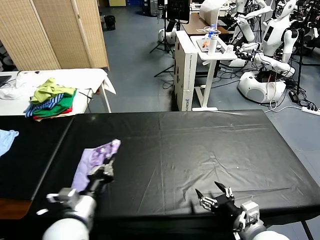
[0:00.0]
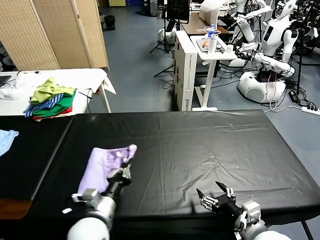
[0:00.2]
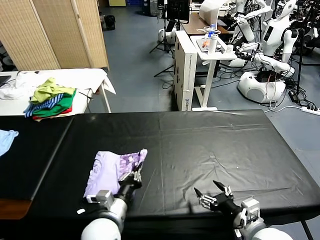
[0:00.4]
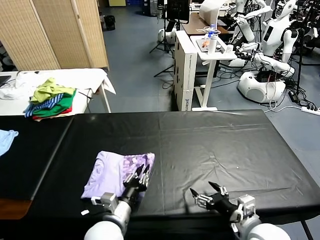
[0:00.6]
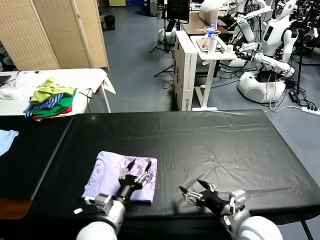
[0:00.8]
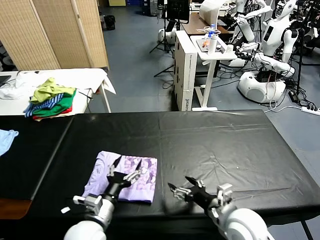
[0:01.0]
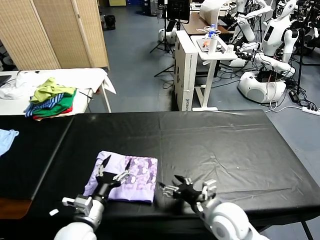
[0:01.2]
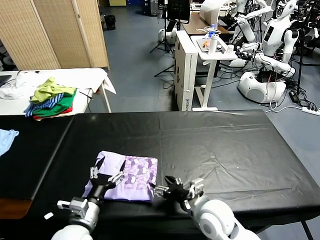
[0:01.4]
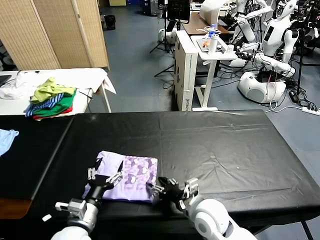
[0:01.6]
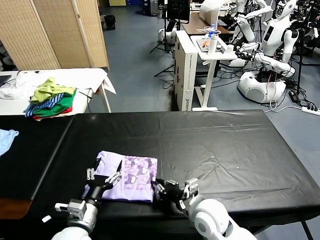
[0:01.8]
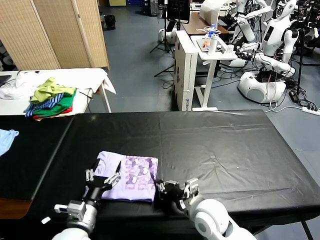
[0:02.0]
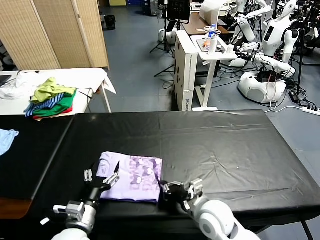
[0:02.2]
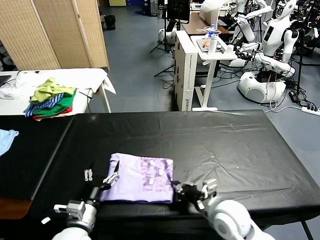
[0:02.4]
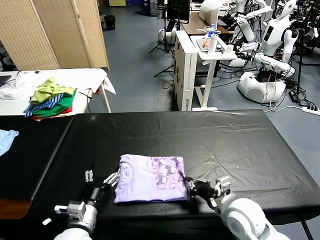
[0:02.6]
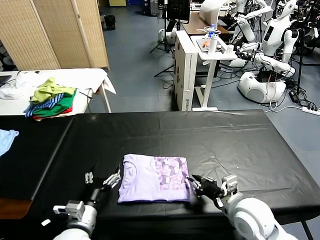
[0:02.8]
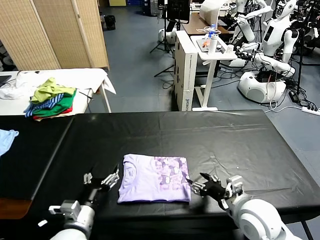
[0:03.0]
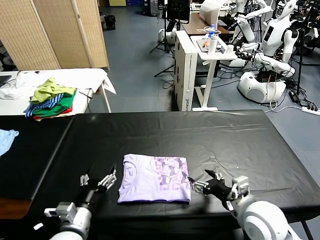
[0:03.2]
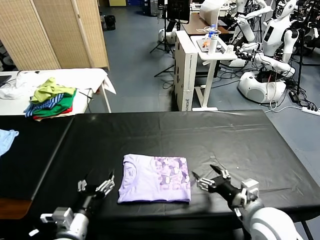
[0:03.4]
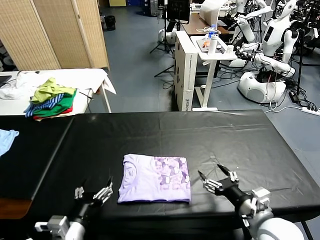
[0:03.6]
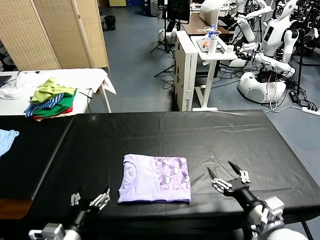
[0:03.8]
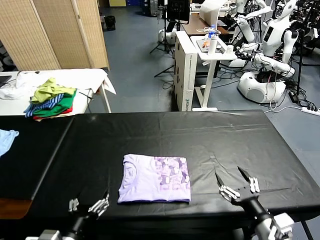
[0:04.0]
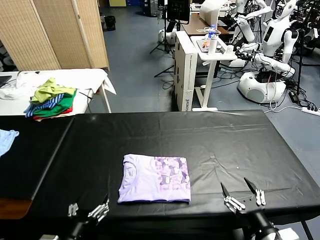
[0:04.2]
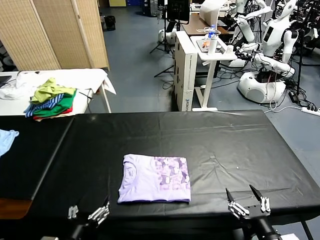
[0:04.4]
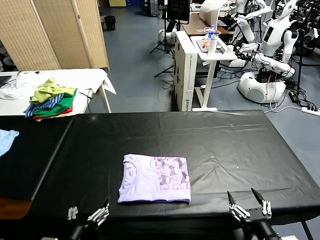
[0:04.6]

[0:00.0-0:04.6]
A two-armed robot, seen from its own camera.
Task of the whole recording: fold and organize the clothes.
Step, 0:01.0 to 0:03.2: Drag the clothes to the center of the table.
0:00.0 to 0:01.6: The left gripper goes some 5 cm downward, reaches about 10 cm to the right, then returns, and opens, while the right gripper shifts approximately 15 cm to the left and forward.
0:01.6 to 0:03.0: The right gripper heads to the right and upward, covering approximately 10 cm, and closes and opens again.
0:03.0 to 0:04.6: The left gripper travels backward by some 10 cm, while the right gripper is displaced backward by approximately 15 cm, and opens up.

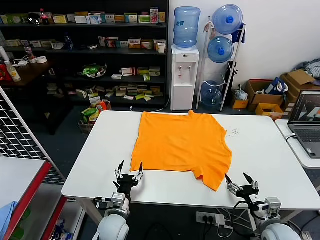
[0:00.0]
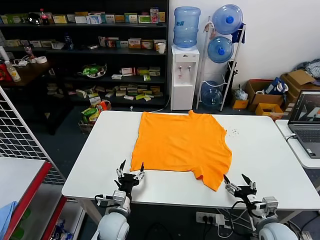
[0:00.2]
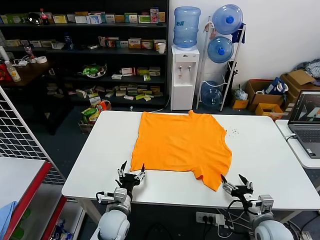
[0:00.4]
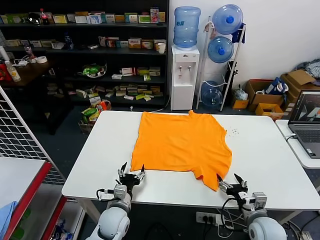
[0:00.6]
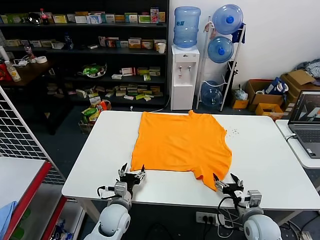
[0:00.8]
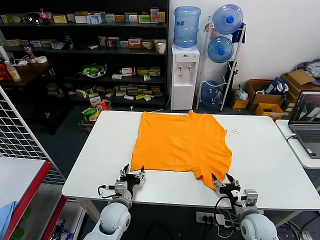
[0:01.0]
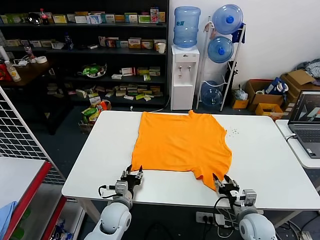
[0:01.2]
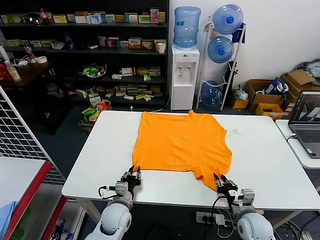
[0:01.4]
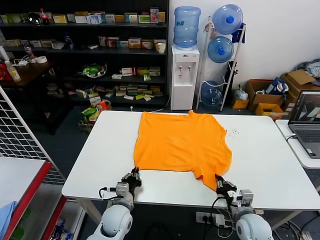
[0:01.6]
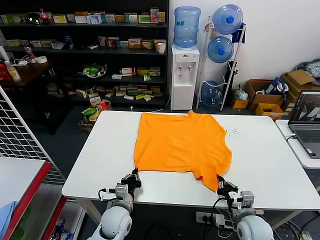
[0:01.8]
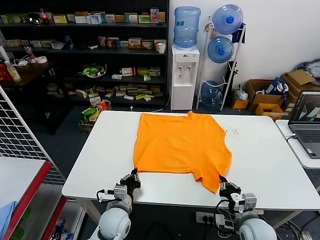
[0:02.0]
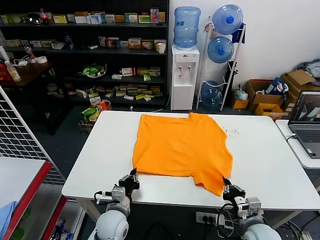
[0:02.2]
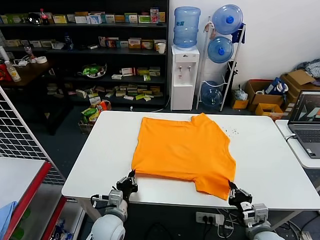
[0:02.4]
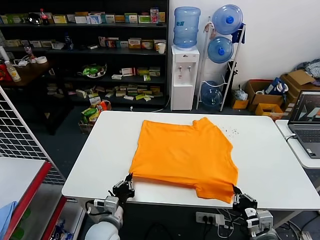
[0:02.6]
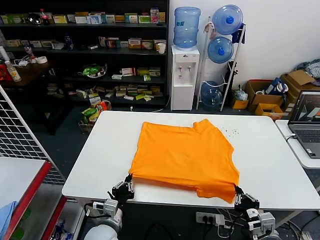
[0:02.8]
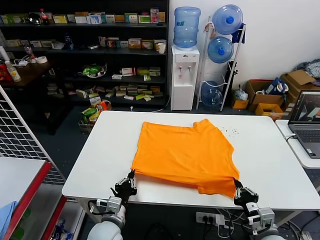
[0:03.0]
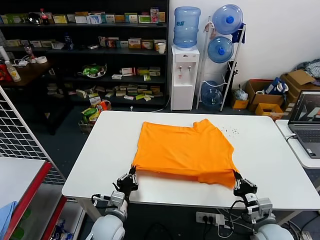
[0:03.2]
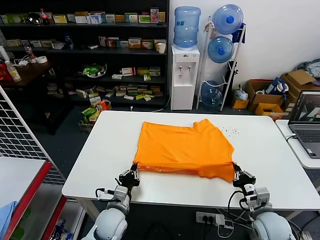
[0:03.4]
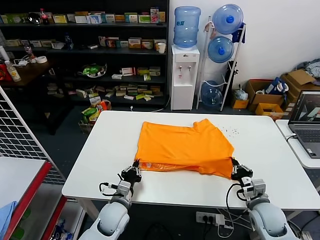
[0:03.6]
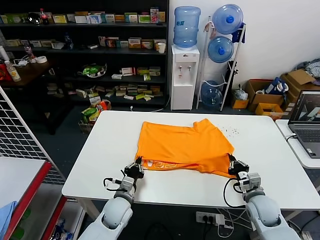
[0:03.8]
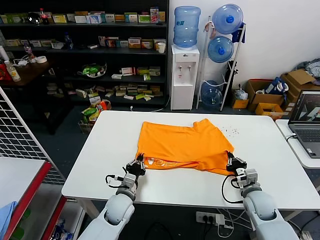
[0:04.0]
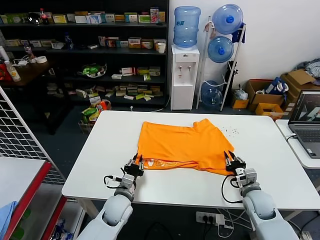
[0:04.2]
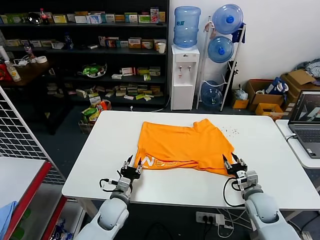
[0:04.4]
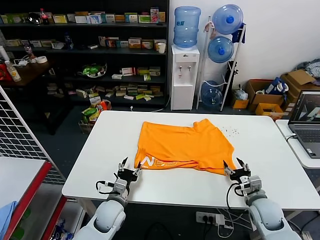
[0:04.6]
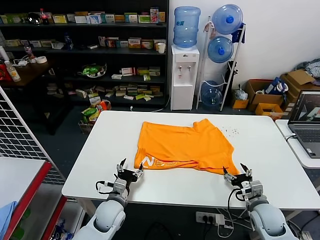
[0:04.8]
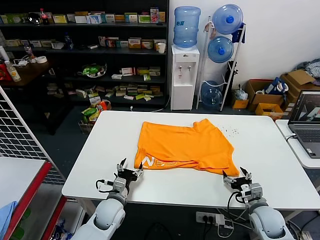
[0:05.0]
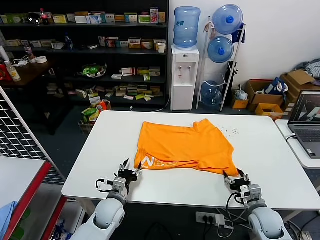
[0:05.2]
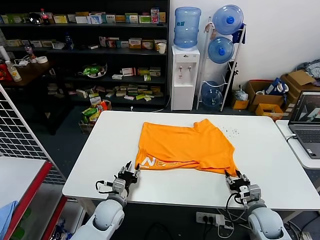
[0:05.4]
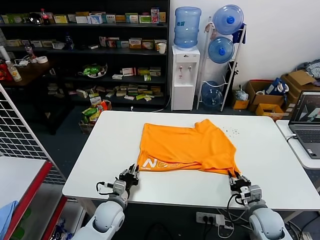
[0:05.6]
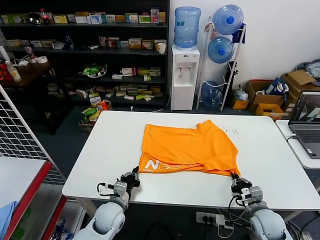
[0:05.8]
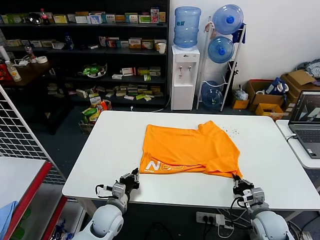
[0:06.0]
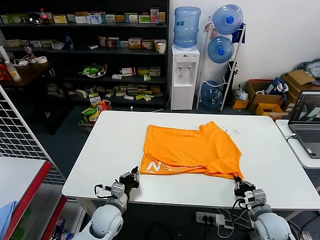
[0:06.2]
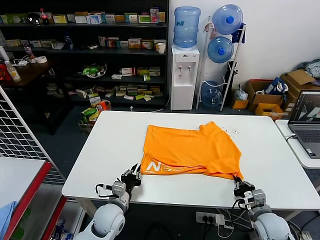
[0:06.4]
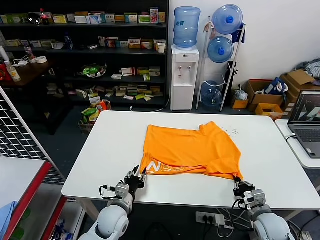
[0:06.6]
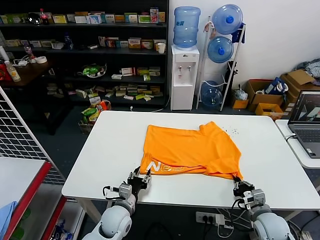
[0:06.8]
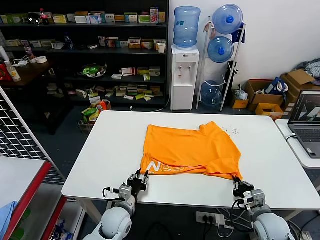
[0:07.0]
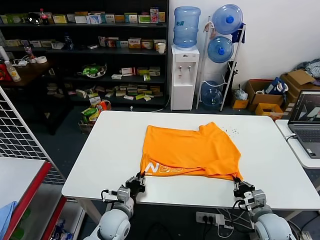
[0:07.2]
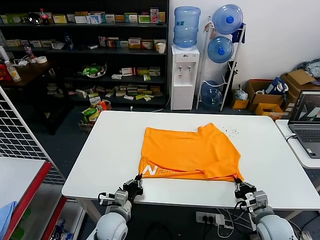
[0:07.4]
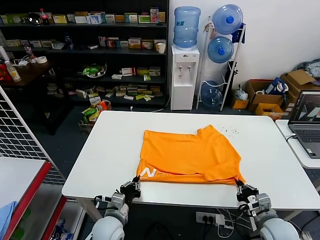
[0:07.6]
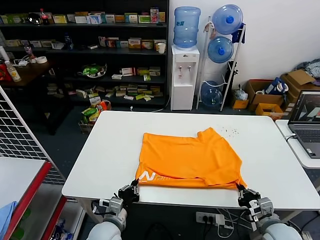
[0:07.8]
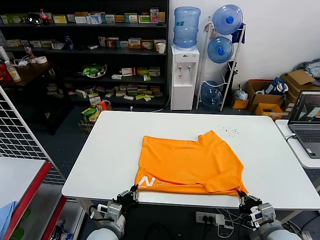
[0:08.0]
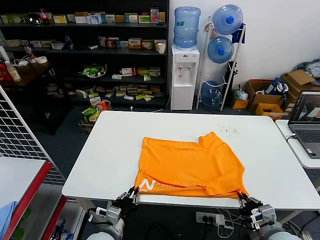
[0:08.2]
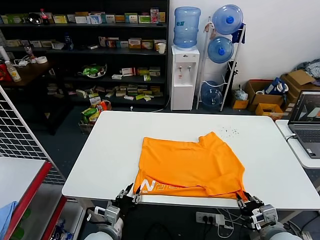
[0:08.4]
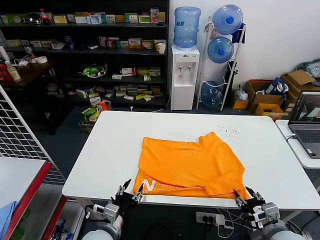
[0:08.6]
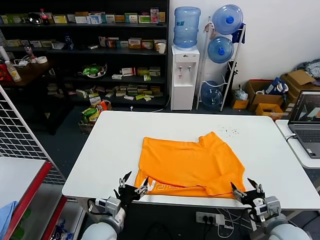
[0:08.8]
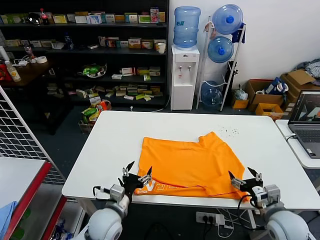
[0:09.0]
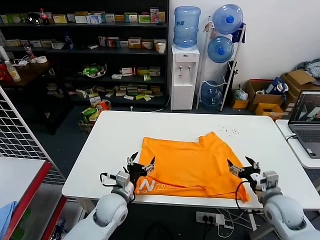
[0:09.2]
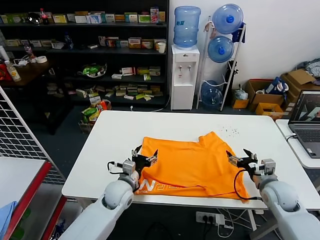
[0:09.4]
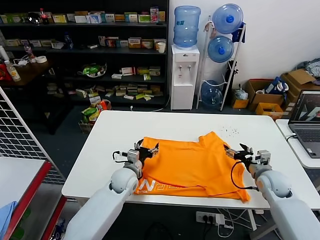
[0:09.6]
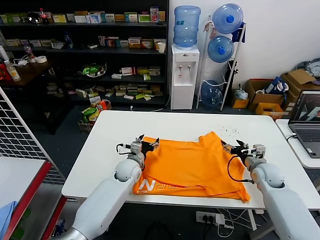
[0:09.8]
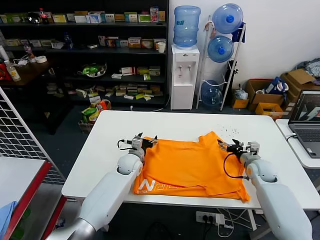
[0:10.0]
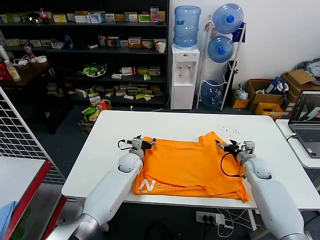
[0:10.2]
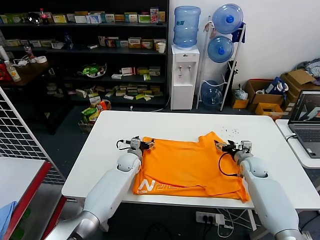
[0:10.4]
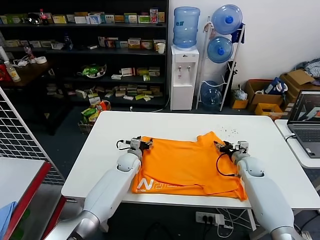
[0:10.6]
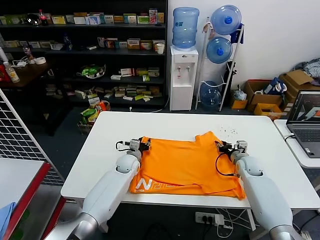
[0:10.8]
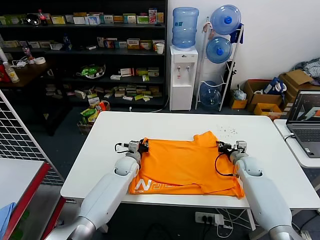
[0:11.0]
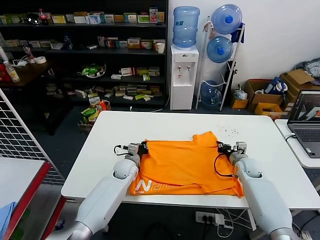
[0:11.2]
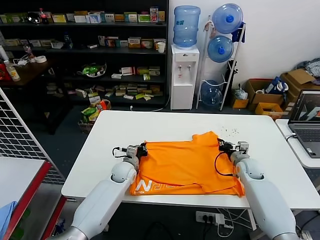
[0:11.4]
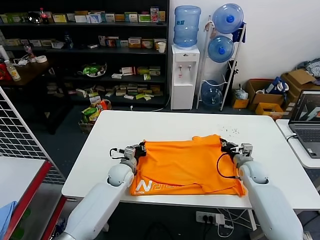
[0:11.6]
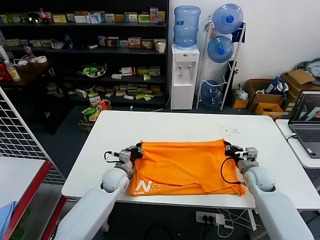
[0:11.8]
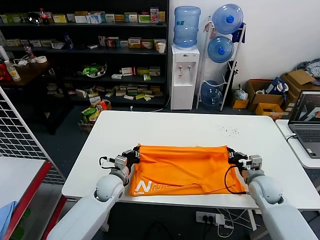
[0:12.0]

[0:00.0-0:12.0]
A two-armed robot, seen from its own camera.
Task of the whole recording: fold and organize the clothes.
Step, 0:00.0 to 0:01.8: use both grippers simultaneously to clamp the lower edge of the clothing fabric.
Step, 0:02.0 to 0:04.2: use both grippers to drag the lower edge of the fabric forward and fold it over the upper edge.
Step, 0:04.4 to 0:08.4: Drag the clothes downward with both gripper.
Step, 0:08.6 to 0:11.0: use both grippers simultaneously to clamp the upper edge of the clothing fabric.
0:01.6 to 0:03.0: Both grippers move backward, roughly 5 cm.
0:03.0 to 0:04.4: Both grippers travel together forward, approximately 10 cm. The right gripper opens up, while the left gripper opens up.
0:04.4 to 0:06.0: The right gripper is displaced backward by roughly 5 cm, and closes up. The left gripper closes up.
0:06.0 to 0:07.6: The left gripper opens, then closes once more.
0:07.6 to 0:09.0: The grippers both shift upward by roughly 5 cm. The left gripper opens its fingers. Meanwhile the right gripper opens its fingers.
0:09.0 to 0:10.4: Both grippers travel together forward, roughly 25 cm.
0:10.4 to 0:12.0: Both grippers move backward, about 10 cm. The right gripper closes its fingers. The left gripper closes up.

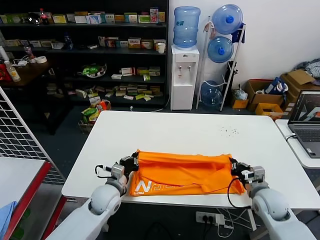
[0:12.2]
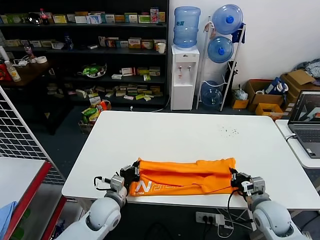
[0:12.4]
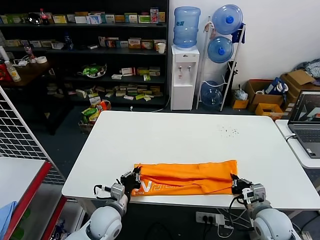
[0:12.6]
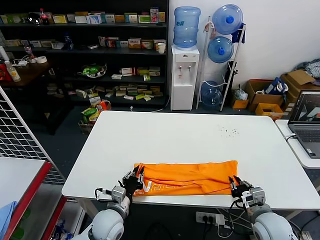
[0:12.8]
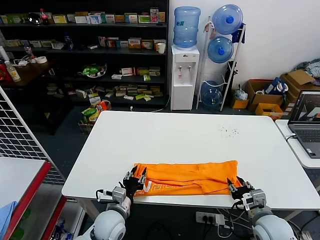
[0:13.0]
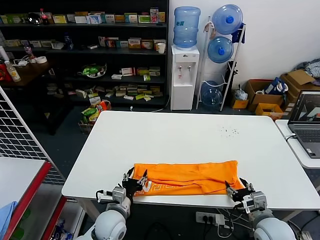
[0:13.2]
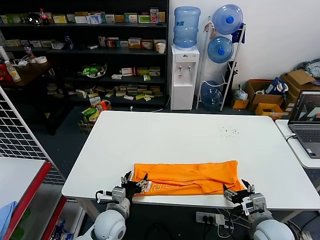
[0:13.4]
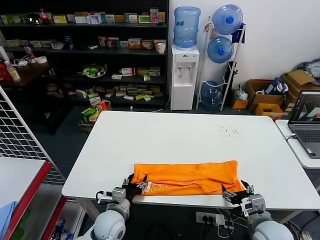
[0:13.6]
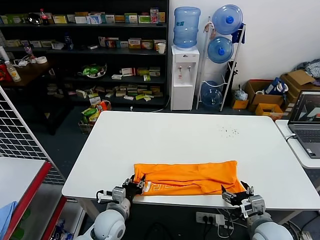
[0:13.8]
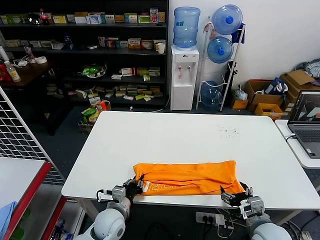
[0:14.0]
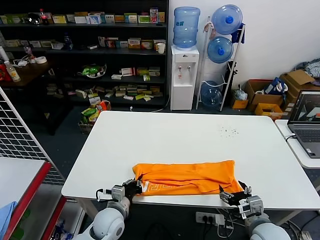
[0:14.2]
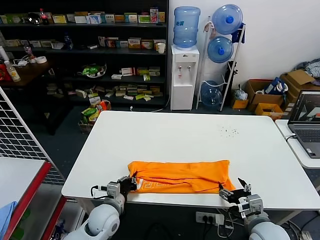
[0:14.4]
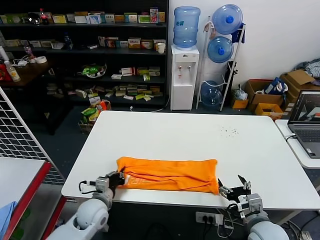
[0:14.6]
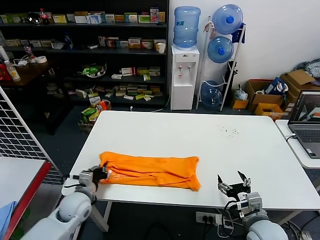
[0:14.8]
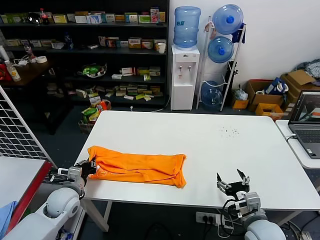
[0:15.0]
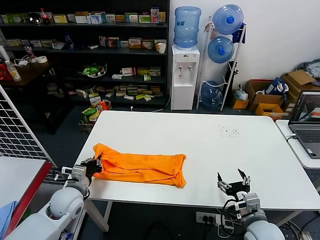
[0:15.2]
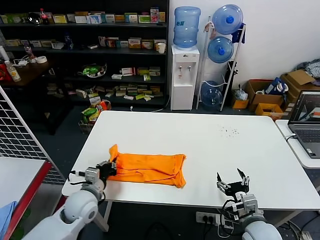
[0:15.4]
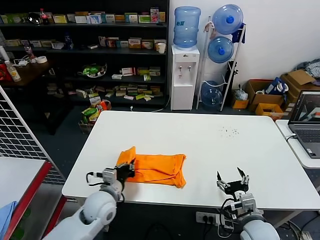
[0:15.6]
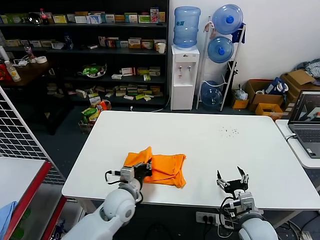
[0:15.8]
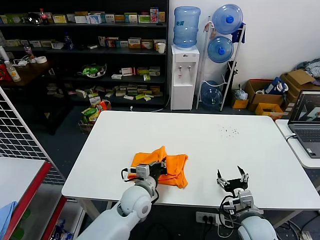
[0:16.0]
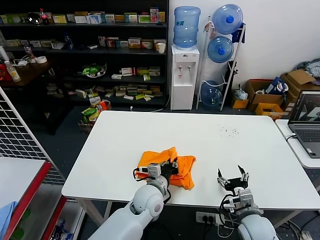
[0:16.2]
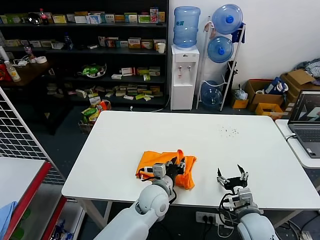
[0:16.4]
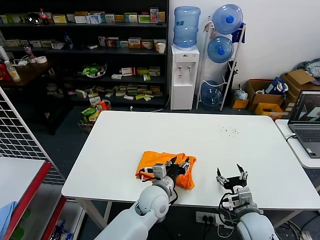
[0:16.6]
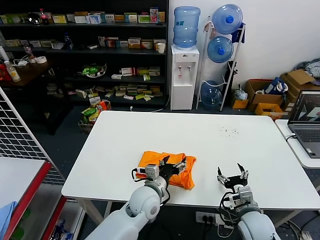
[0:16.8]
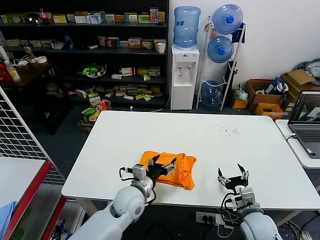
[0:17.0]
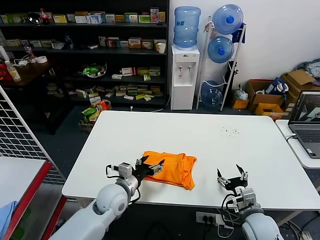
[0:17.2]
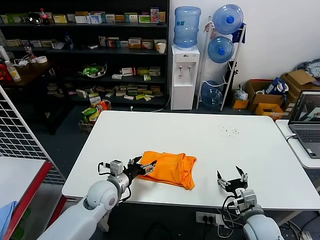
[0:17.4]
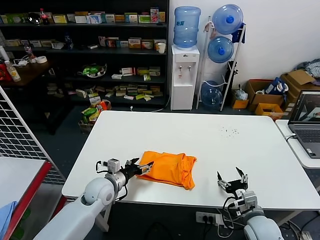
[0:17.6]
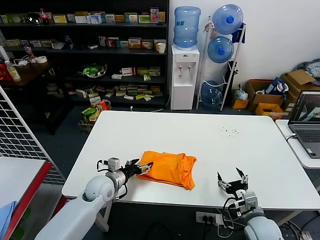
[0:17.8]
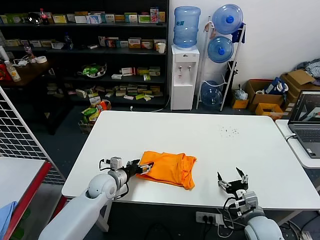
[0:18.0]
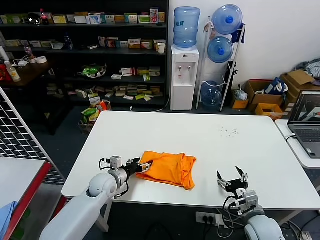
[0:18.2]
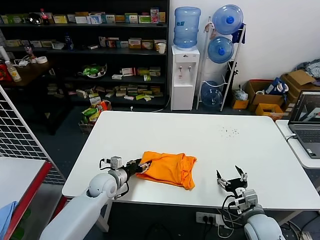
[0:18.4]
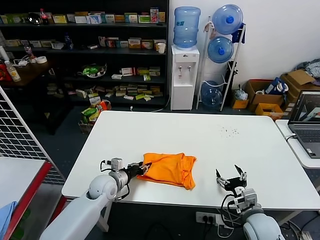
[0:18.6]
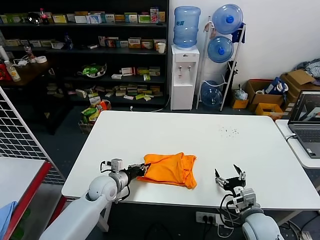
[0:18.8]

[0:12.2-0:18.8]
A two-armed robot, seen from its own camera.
Task of the whole recording: fold and organize the clothes.
Step, 0:13.0 to 0:14.2: use the left gripper to clamp the left edge of the fabric.
Step, 0:14.4 to 0:16.2: use the left gripper to drag the left edge of the fabric to the left and folds it over the right edge.
0:12.2 to 0:13.8: The grippers both shift backward by about 10 cm. The left gripper opens its fingers, while the right gripper opens its fingers.
0:13.8 to 0:15.4: The left gripper is displaced to the left and upward by about 10 cm, and closes its fingers.
0:15.4 to 0:17.2: The left gripper is displaced to the right by about 10 cm, and opens up.
0:17.2 to 0:18.8: The left gripper goes about 10 cm to the left and forward, and closes up.
